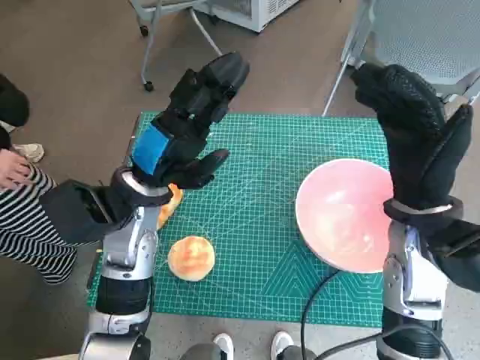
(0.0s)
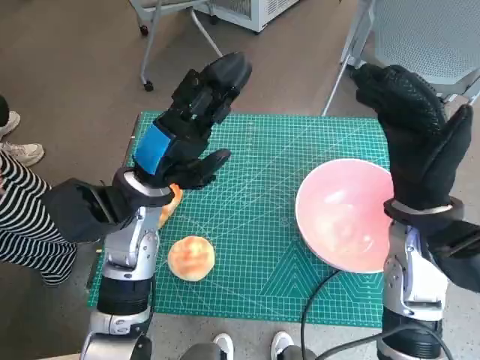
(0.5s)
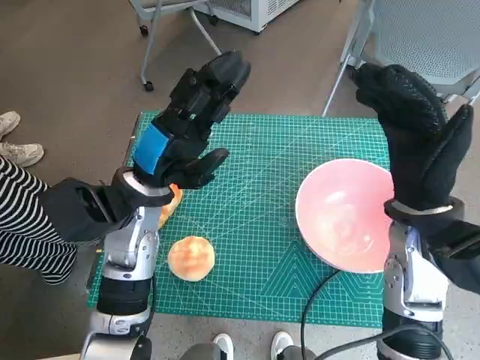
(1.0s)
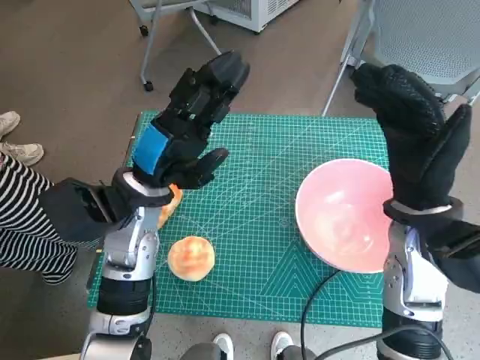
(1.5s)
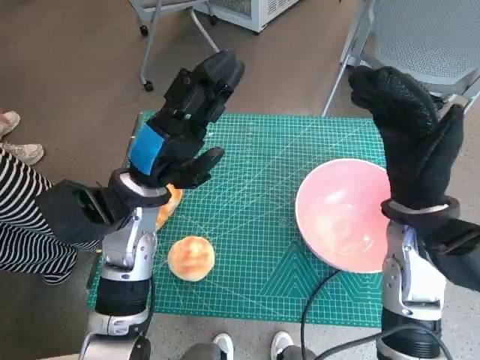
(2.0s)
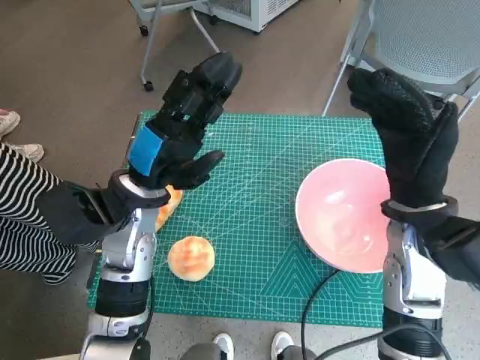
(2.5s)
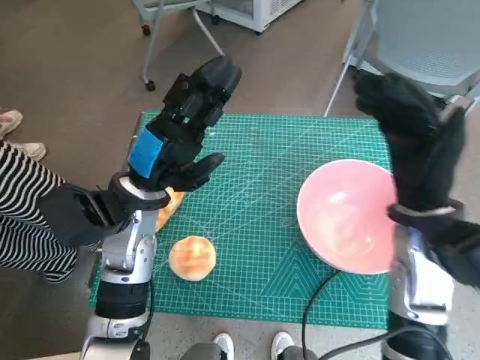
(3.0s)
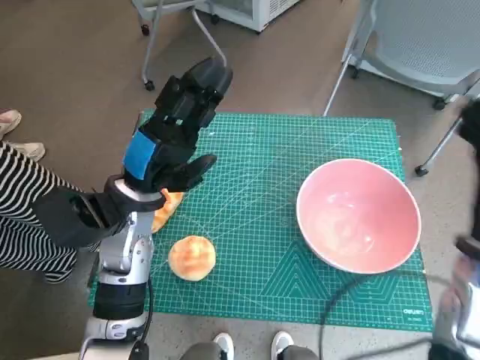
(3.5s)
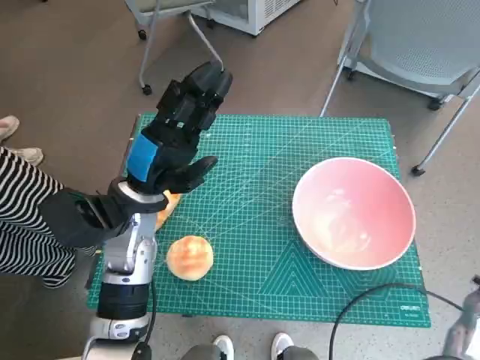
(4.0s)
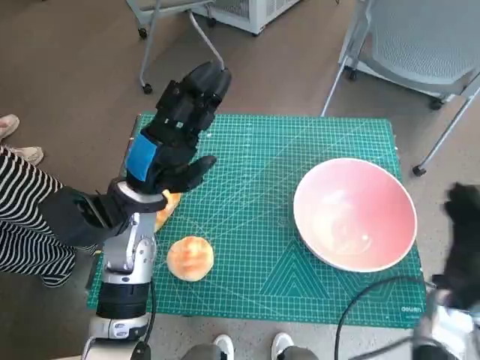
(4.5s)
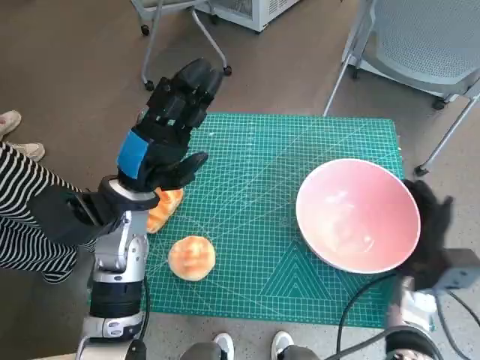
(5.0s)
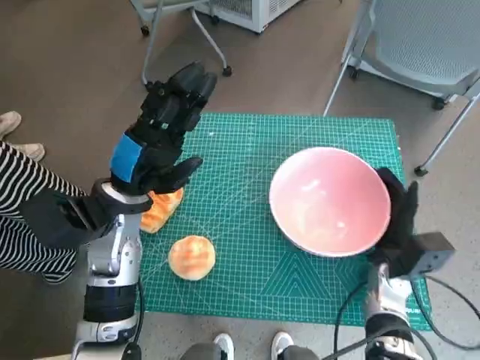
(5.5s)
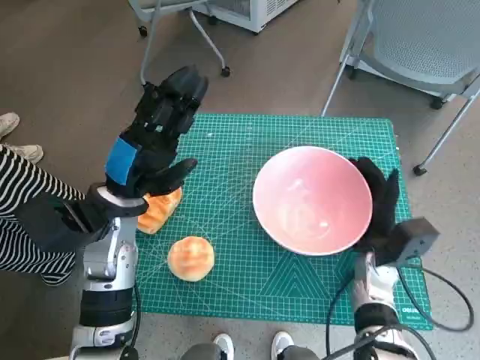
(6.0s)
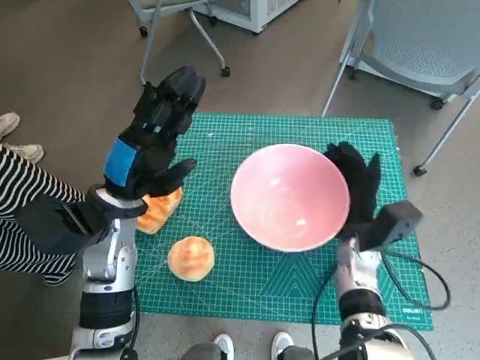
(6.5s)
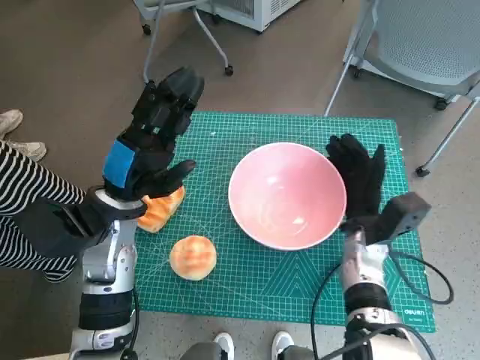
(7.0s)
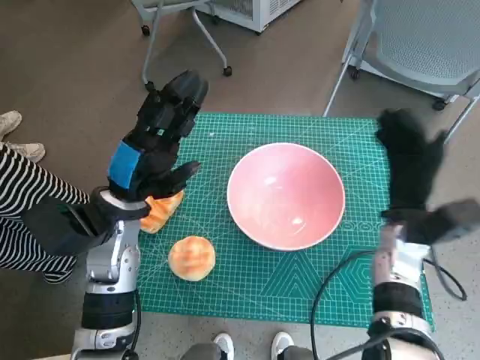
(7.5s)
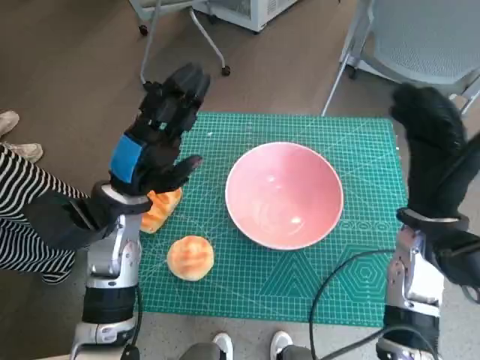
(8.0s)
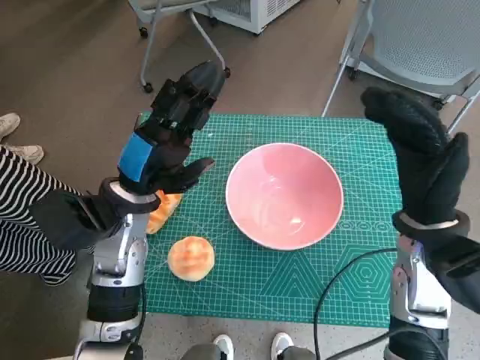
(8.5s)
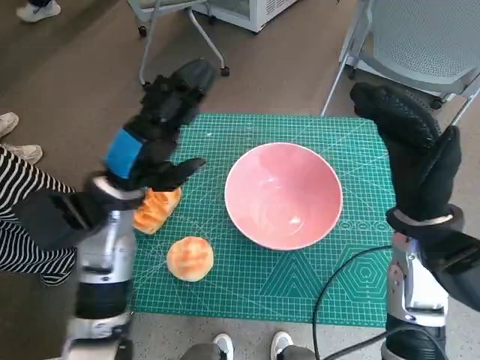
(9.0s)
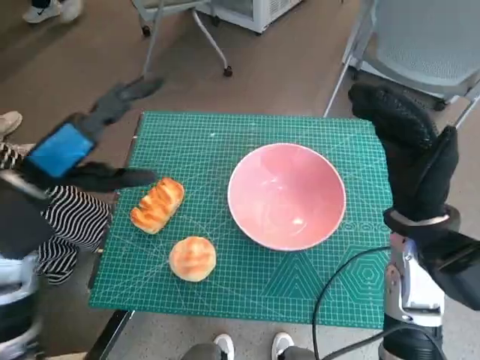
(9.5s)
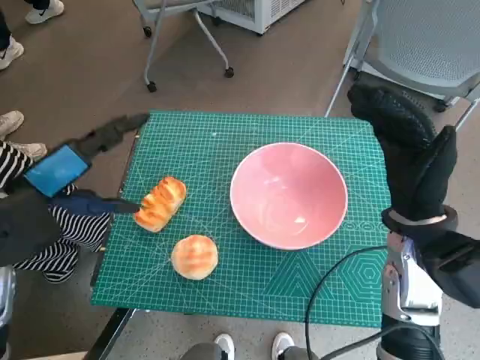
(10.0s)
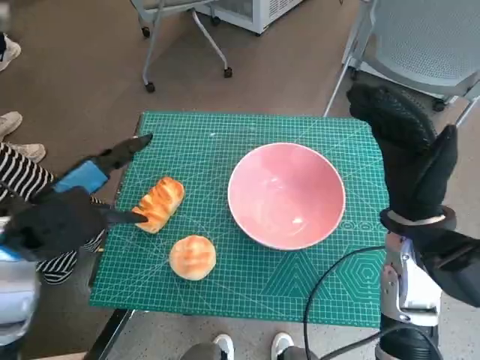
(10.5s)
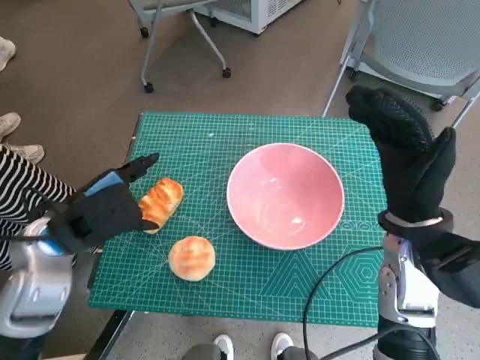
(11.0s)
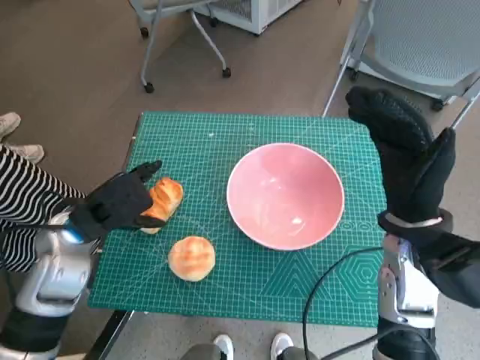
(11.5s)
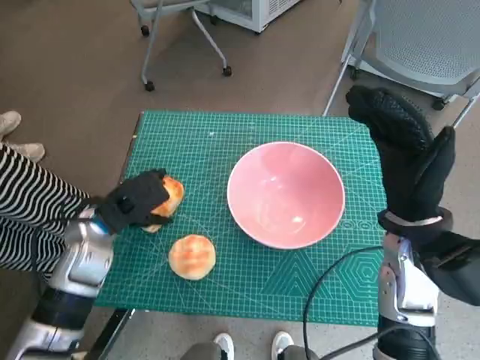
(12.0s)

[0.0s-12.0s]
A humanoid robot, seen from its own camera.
Task of the whole recording: Push the bowl into the center of the table and put the bread into the bowl.
Step, 0.0s to 7.0s: Move the pink bowl to the center of table with right hand.
2.0s to 4.0s: The right hand moves to the right, downward and backward, approximately 15 cm.
4.0s to 6.0s: The right hand heads to the left, downward and forward, covering about 15 cm.
6.0s to 8.0s: The right hand travels upward by some 10 cm.
8.0s to 10.0s: The left hand travels upward, to the left and backward by some 10 cm.
10.0s to 12.0s: The left hand heads downward and forward, covering approximately 15 cm.

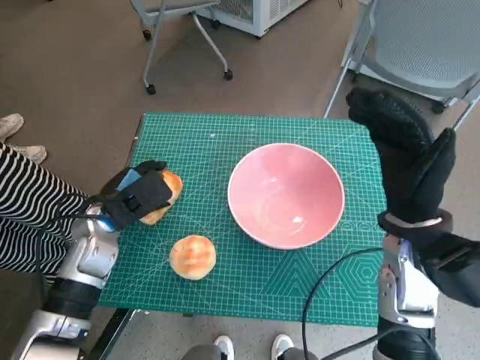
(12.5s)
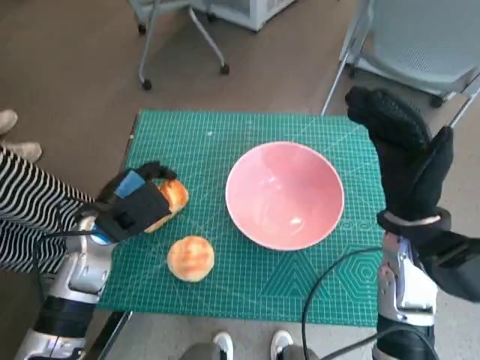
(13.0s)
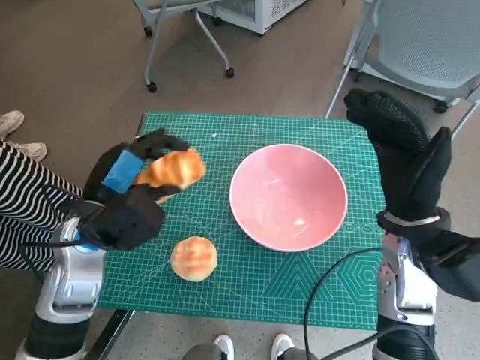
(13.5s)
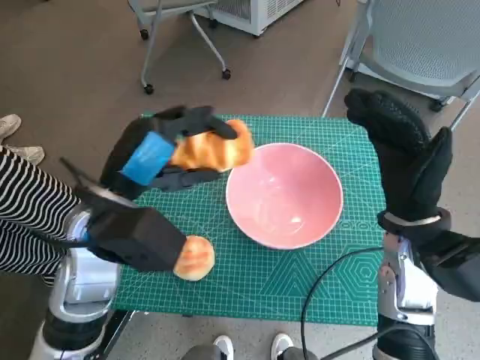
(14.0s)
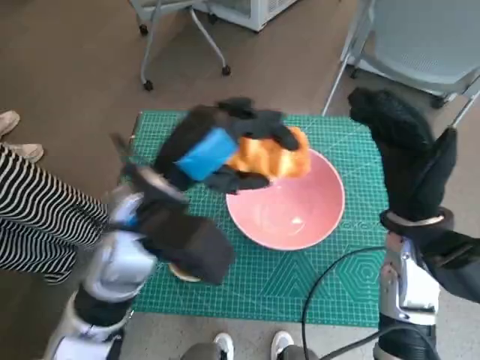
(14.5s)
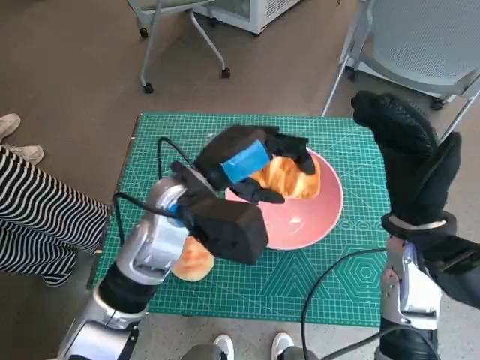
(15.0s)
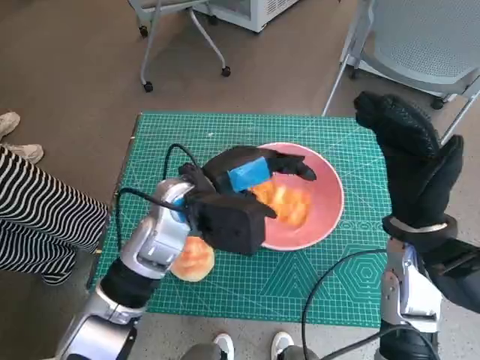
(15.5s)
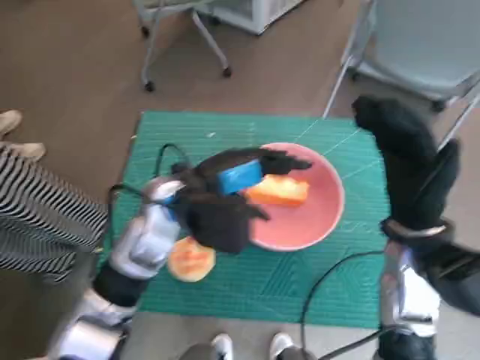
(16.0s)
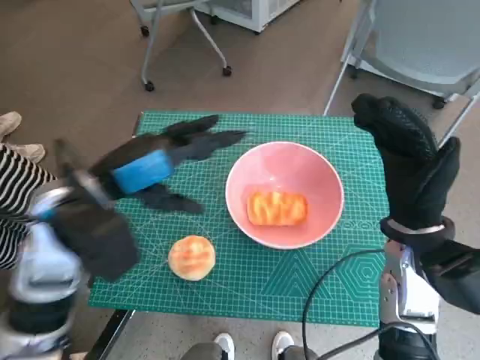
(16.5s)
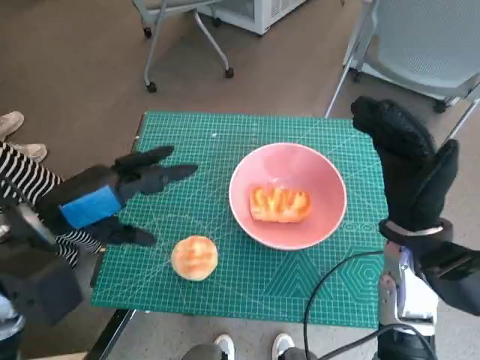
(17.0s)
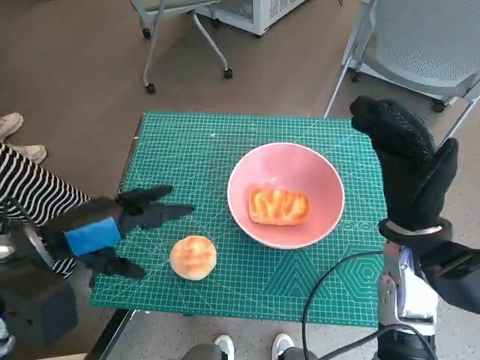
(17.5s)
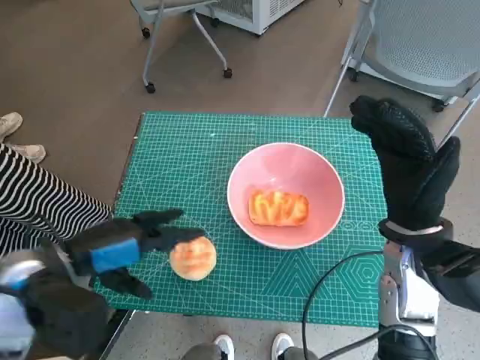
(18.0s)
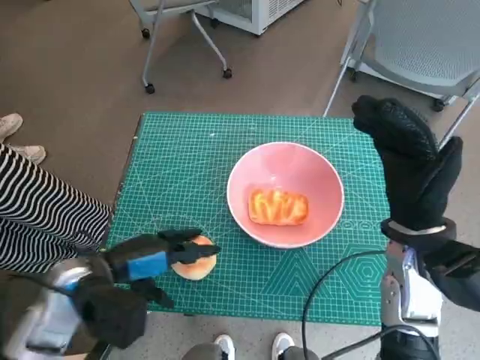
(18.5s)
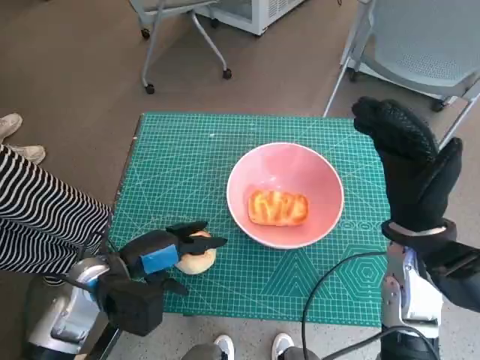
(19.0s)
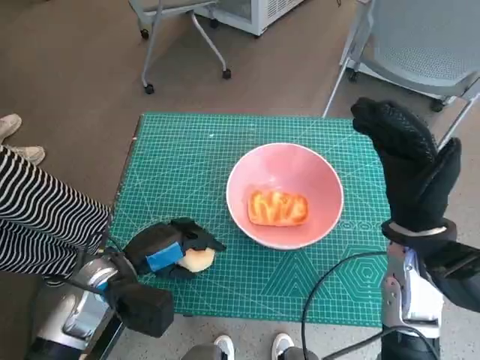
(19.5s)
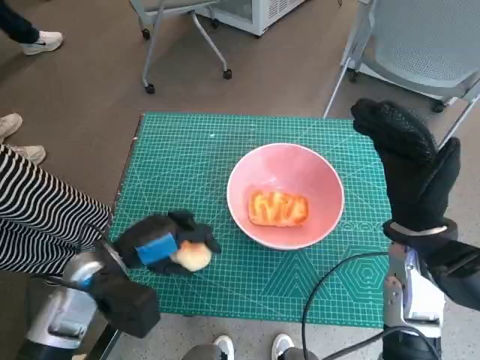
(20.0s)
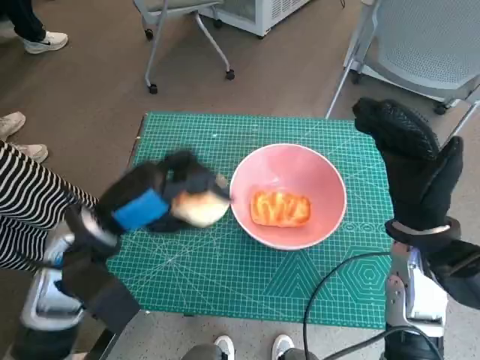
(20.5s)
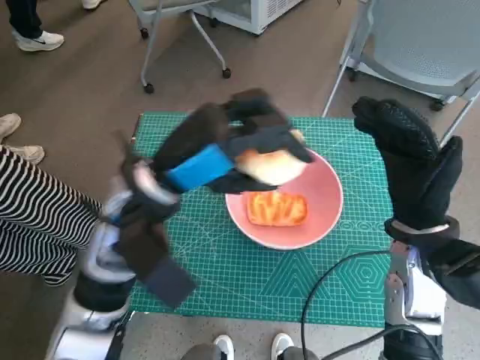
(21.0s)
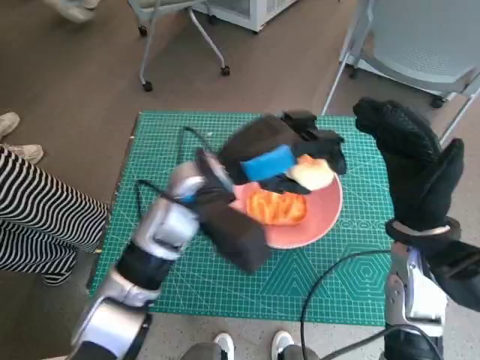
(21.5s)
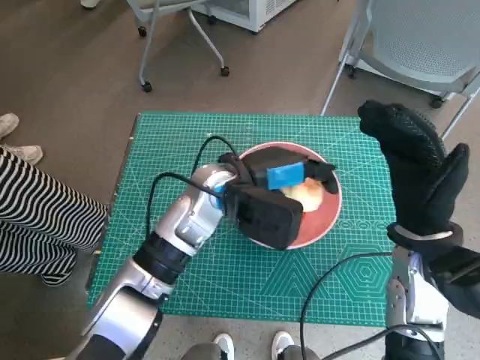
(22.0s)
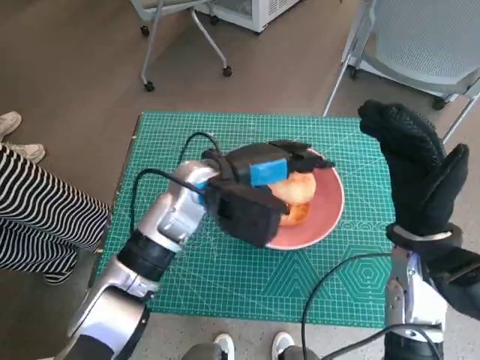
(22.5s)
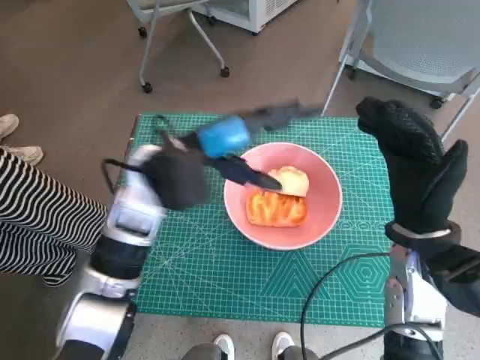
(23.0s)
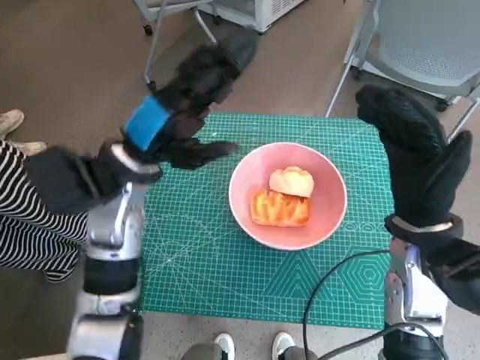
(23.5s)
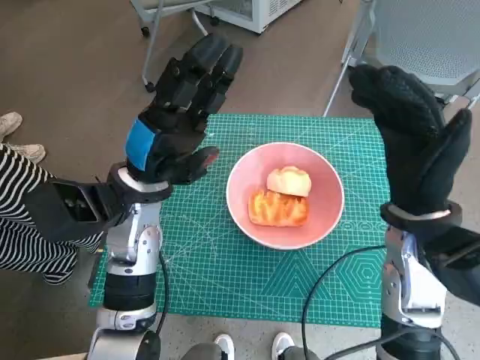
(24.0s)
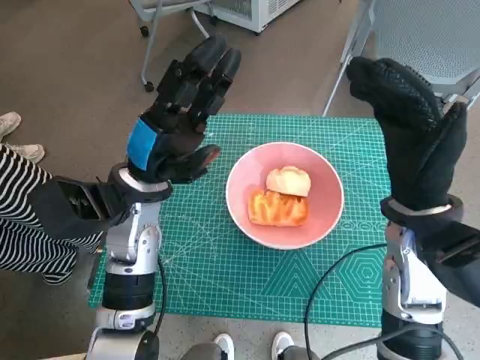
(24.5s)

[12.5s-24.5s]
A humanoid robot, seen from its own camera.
Task of the whole recording: Push the bowl into the center of the table and put the bread into the bowl.
Step, 13.5s to 15.5s: Place the long bread in pink bowl with left hand.
Step, 16.0s to 19.5s: Grasp the round bread with left hand.
Step, 20.0s to 22.5s: Place the round bread in pink bowl with left hand.
12.5s to 14.5s: The left hand travels upward and to the right by approximately 15 cm.
14.5s to 16.5s: The left hand moves to the left, approximately 5 cm.
16.5s to 18.5s: The left hand goes some 10 cm downward and backward.
18.5s to 20.5s: The left hand moves upward, roughly 5 cm.
20.5s to 22.5s: The left hand moves to the right and forward, approximately 15 cm.
22.5s to 24.5s: The left hand goes roughly 10 cm to the left.

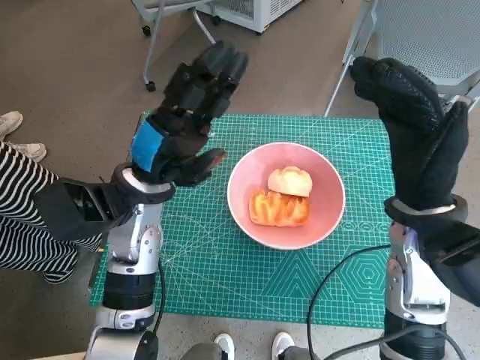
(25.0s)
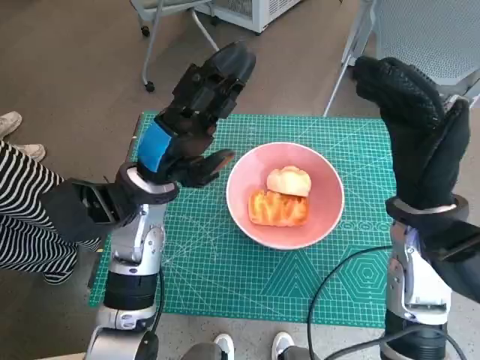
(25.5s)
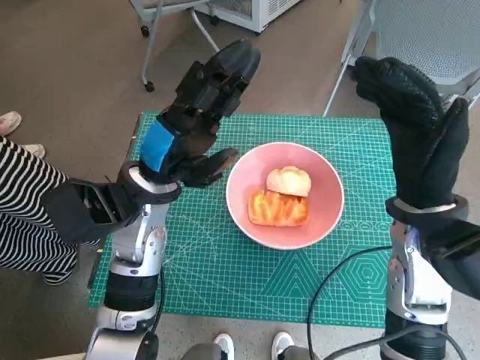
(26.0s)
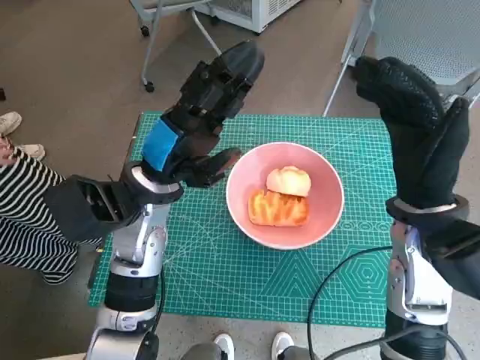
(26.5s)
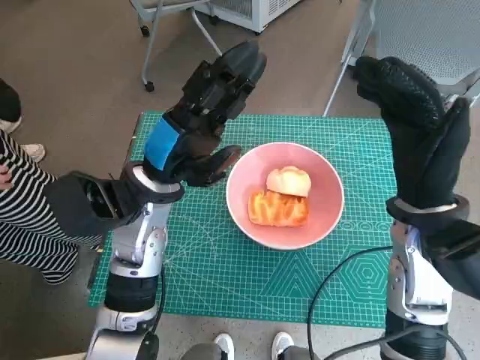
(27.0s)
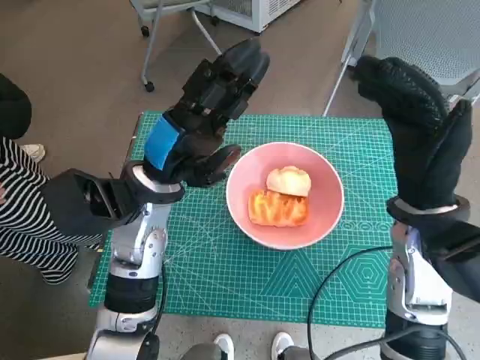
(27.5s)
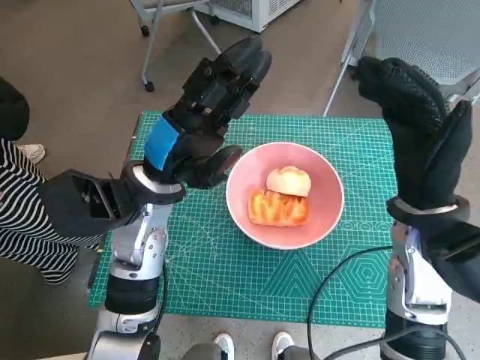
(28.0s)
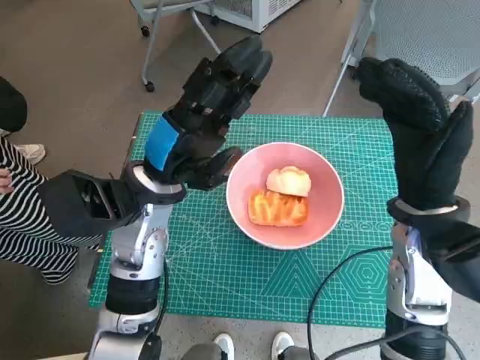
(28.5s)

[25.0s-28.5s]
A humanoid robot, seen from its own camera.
Task of the whole recording: Push the bowl into the center of the table and put the bread into the bowl.
25.0s to 27.0s: There are only small adjustments of the hands.
27.0s to 28.5s: The two hands keep their place.
